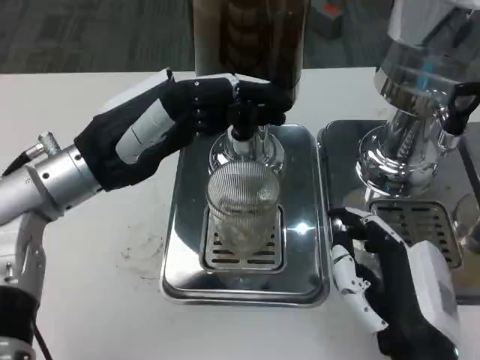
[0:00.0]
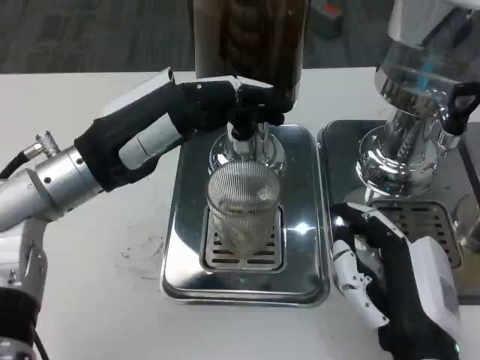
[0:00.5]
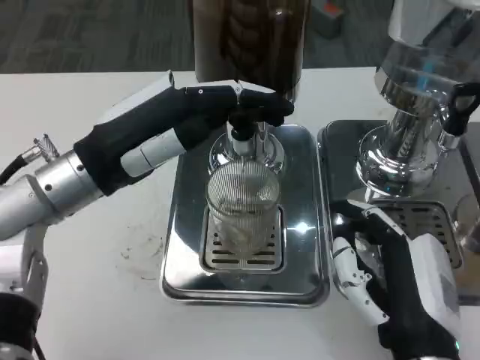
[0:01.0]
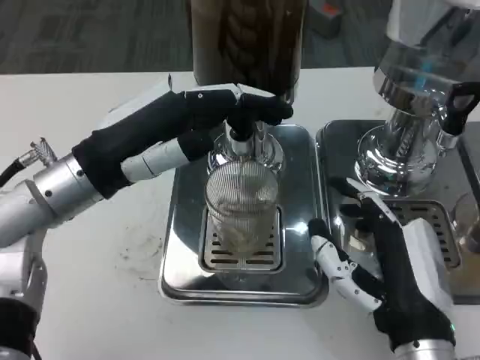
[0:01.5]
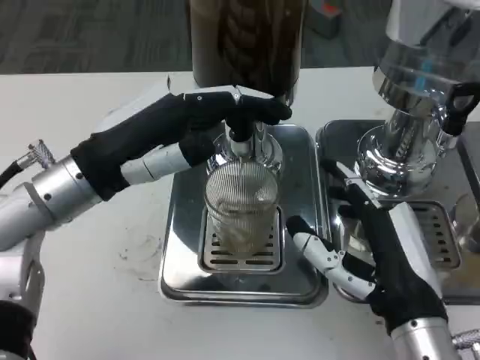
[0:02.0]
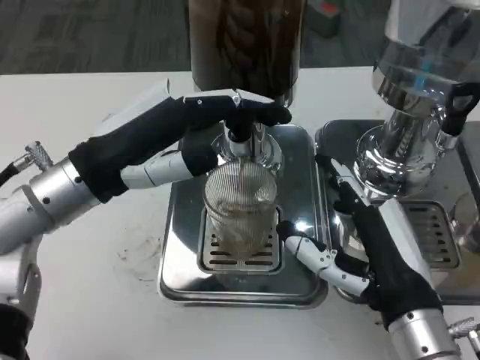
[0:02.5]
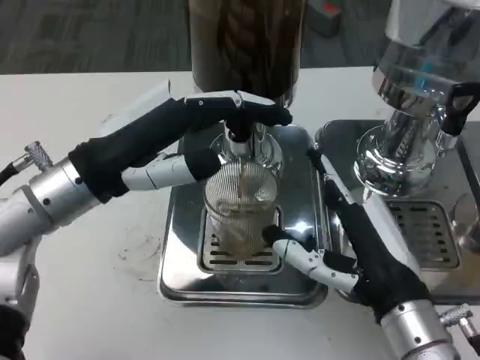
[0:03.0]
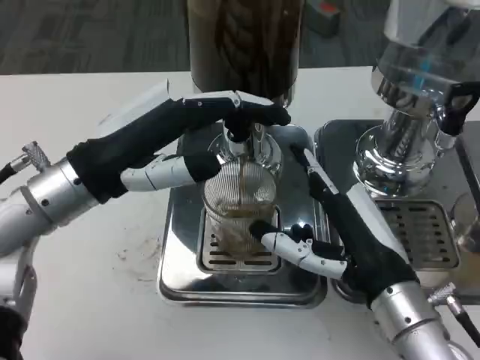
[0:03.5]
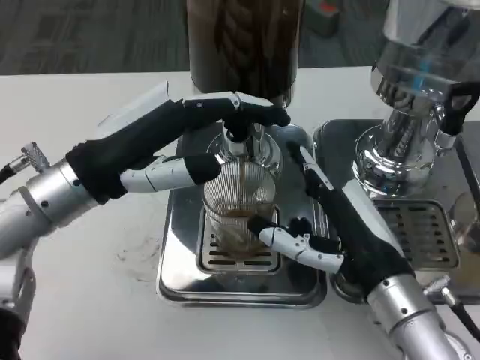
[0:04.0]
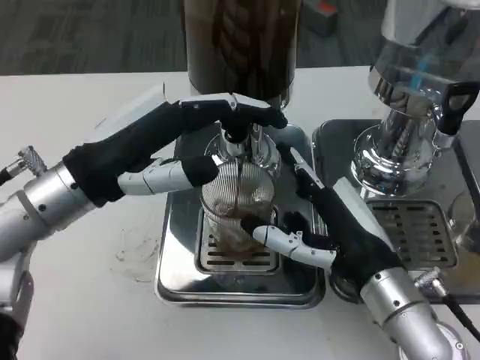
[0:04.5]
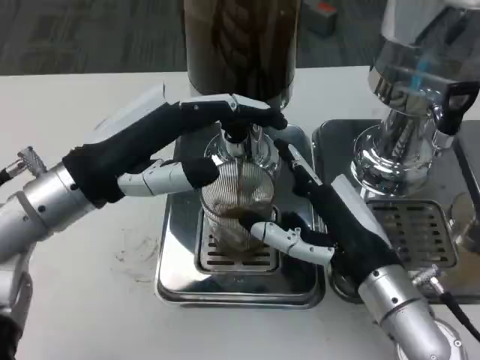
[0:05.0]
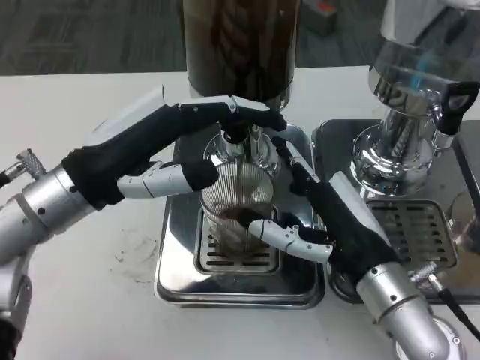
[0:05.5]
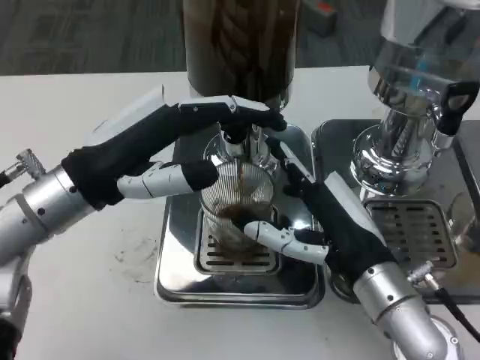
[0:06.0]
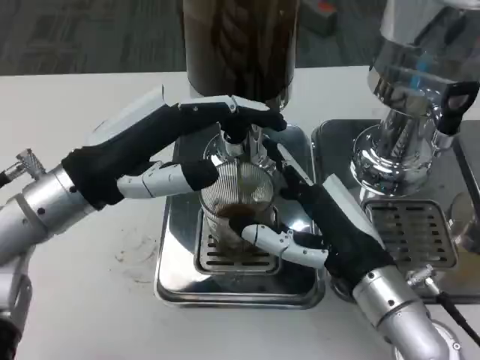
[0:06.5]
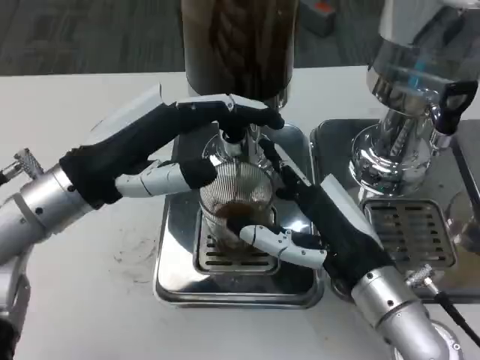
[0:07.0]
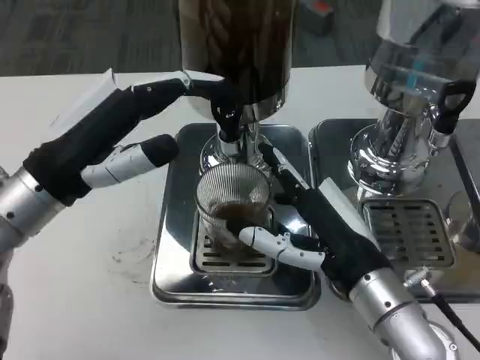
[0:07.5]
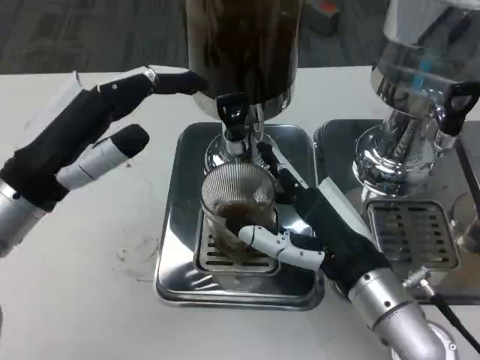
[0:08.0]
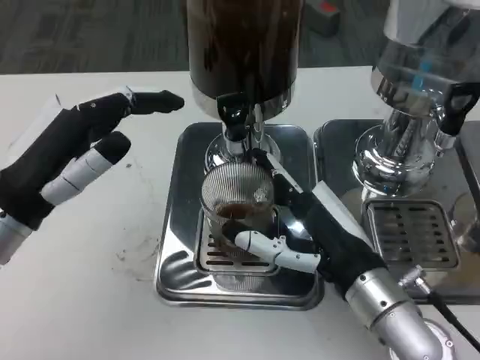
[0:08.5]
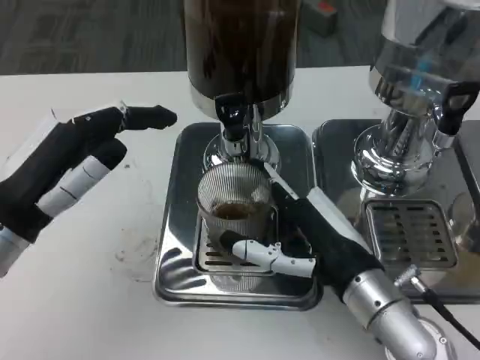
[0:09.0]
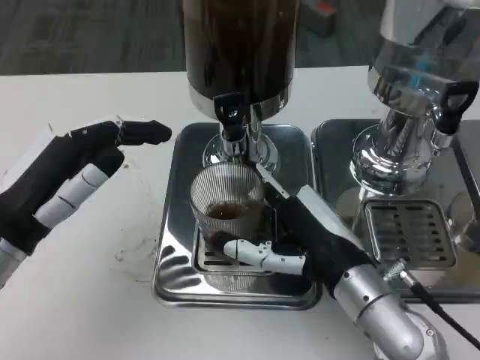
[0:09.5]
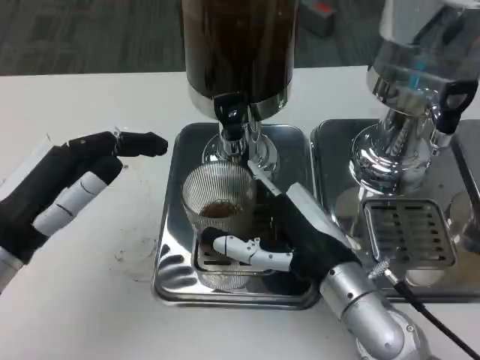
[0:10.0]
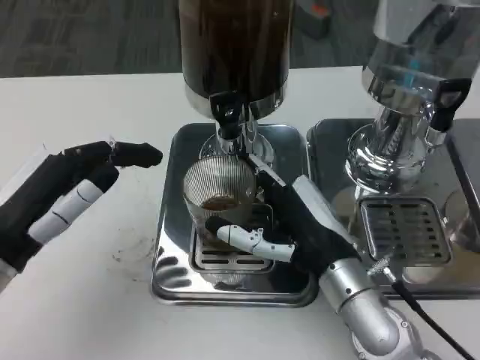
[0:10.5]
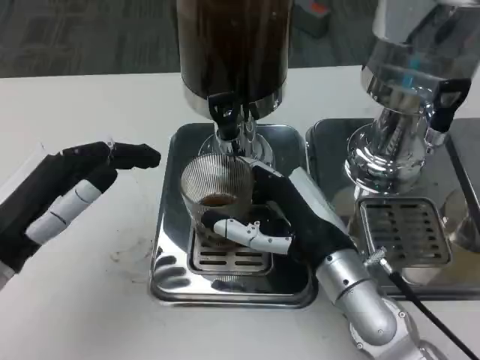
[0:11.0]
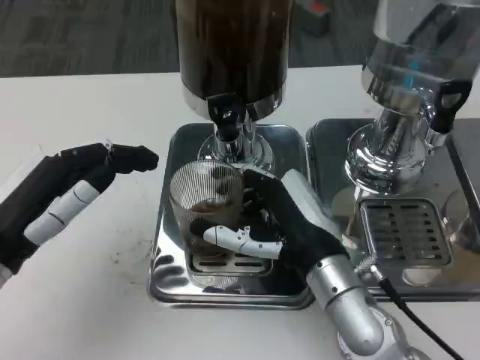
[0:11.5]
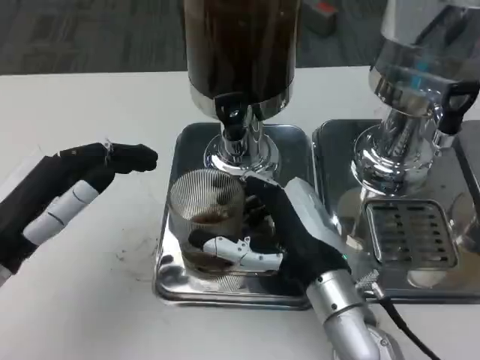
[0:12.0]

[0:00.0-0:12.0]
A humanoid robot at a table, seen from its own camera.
Task of the whole recording: Grasp the cup under the faucet to collect the drink, then remove the cup.
0:04.0 to 0:06.0: There are only small adjustments of the hands.
0:08.0 to 0:10.0: The left hand ends up some 5 cm from where it was.
0:10.0 to 0:12.0: The hands stay close to where they were, moving slightly.

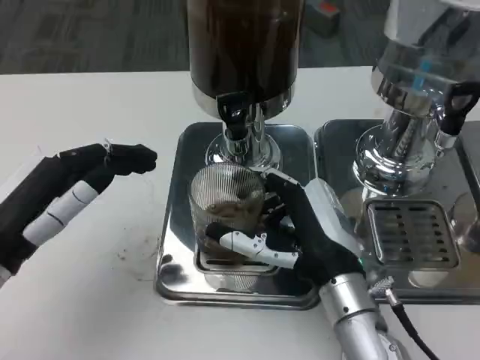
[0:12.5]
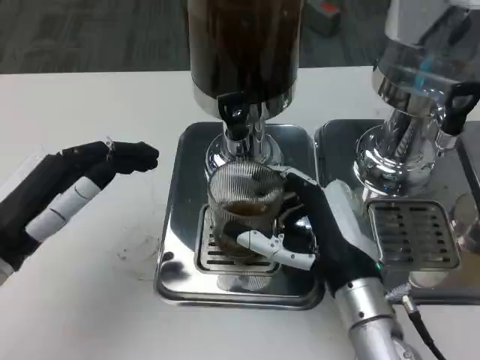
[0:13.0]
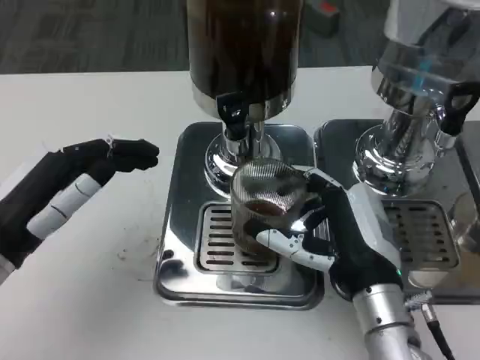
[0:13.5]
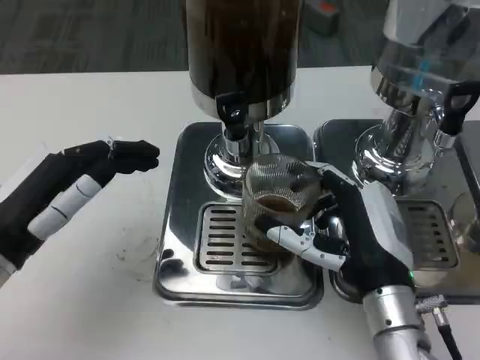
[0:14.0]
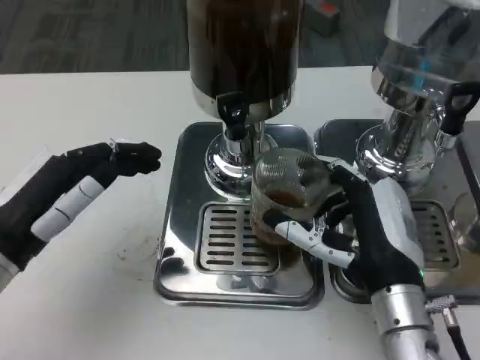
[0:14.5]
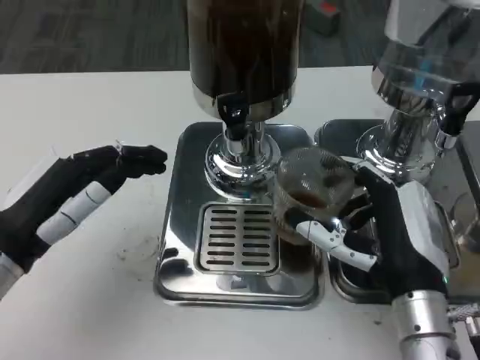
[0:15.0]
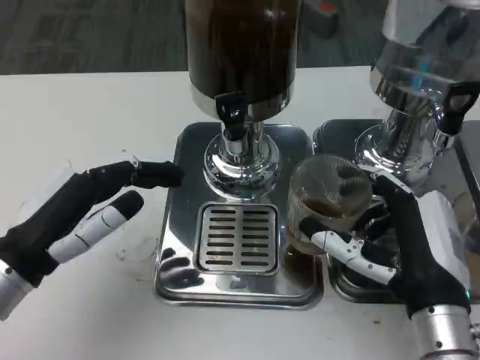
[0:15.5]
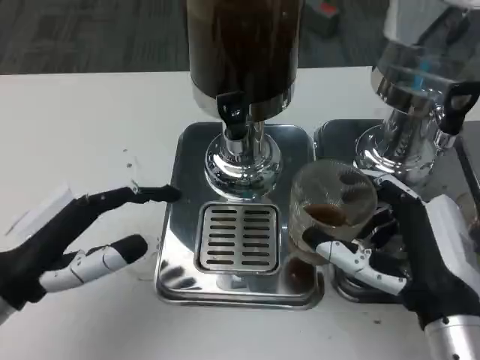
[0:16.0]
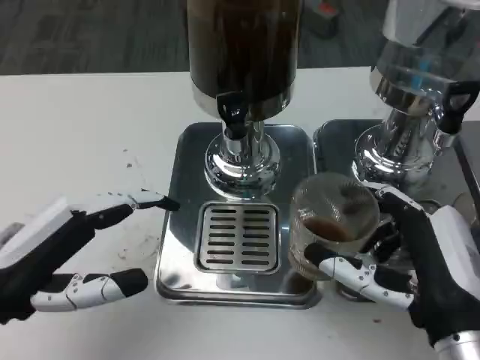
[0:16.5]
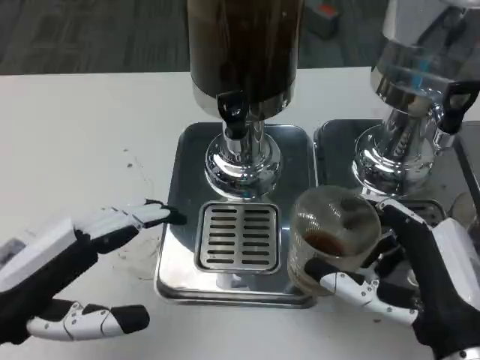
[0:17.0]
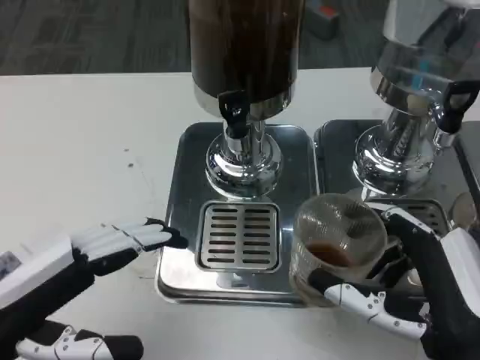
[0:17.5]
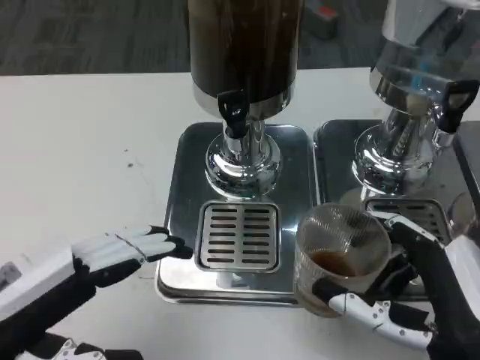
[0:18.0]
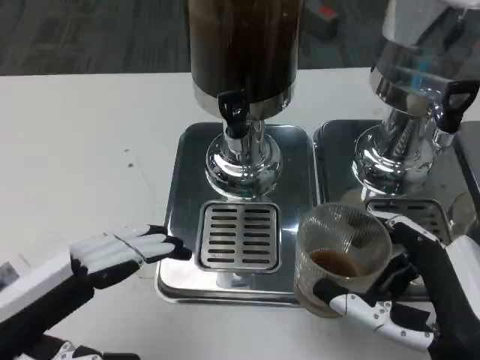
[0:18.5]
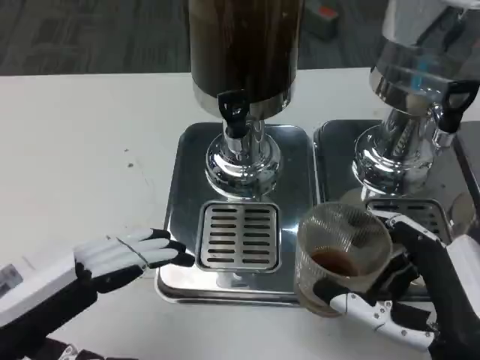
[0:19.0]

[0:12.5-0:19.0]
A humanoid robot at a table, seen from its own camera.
Task of the whole recording: Grasp the cup under the faucet to collect the drink, then remove the cup.
0:14.5 to 0:17.0: The hands both shift backward by roughly 5 cm.

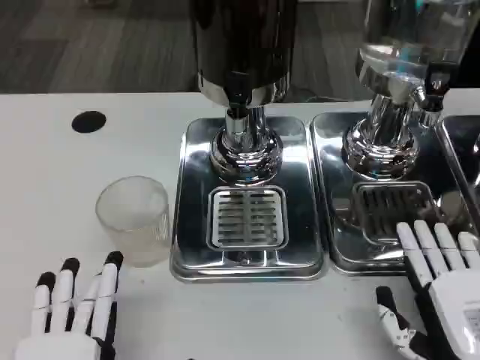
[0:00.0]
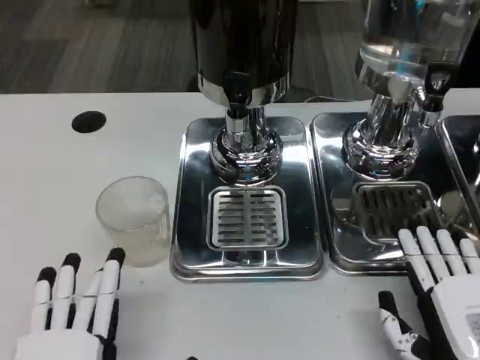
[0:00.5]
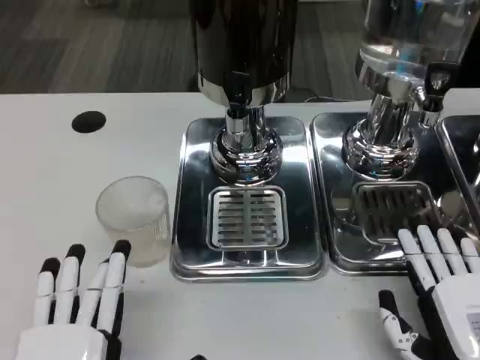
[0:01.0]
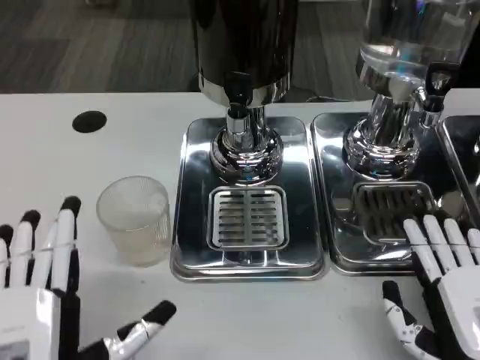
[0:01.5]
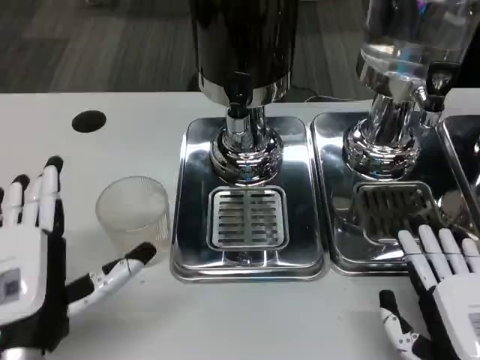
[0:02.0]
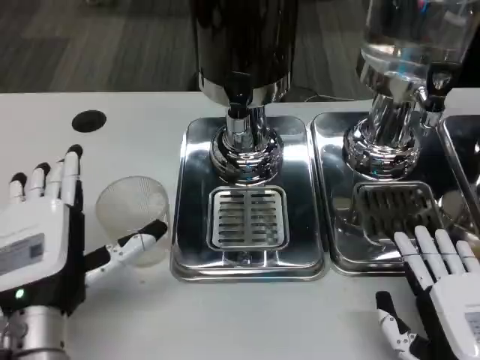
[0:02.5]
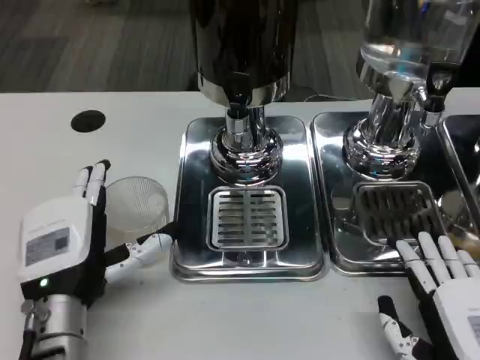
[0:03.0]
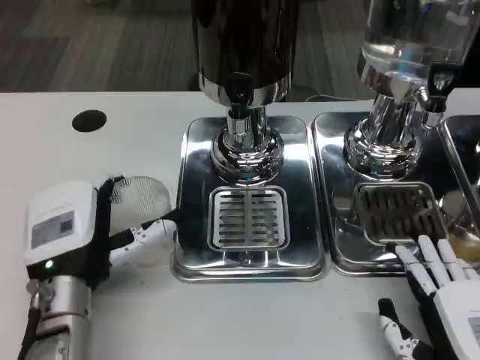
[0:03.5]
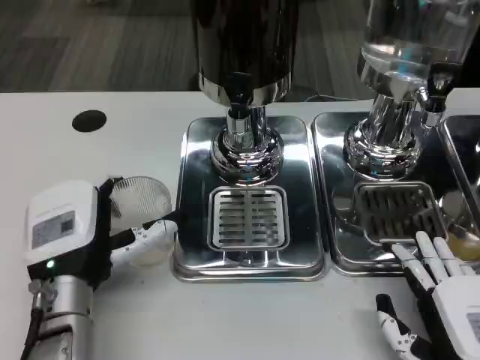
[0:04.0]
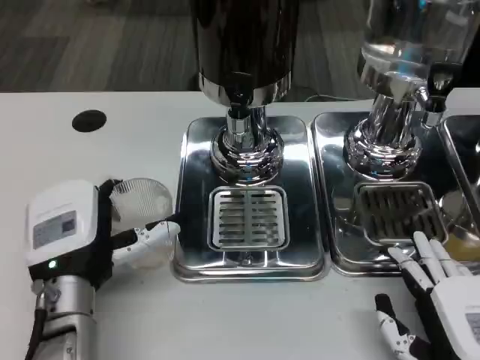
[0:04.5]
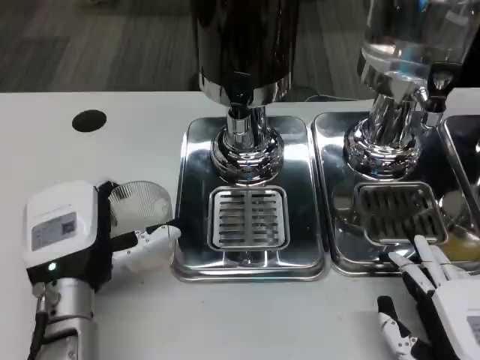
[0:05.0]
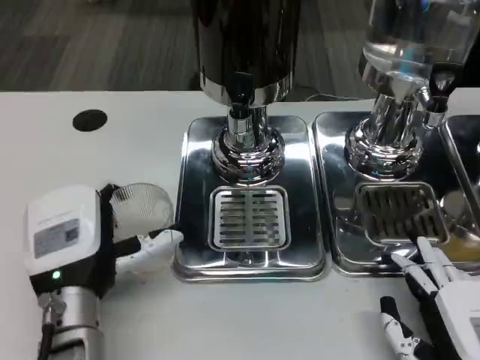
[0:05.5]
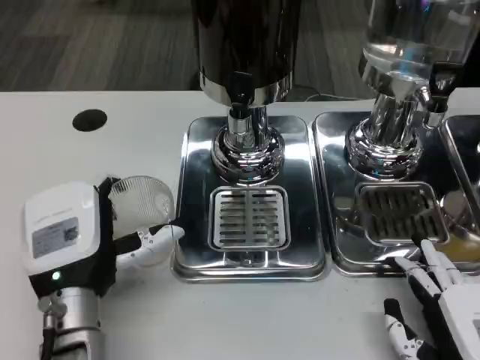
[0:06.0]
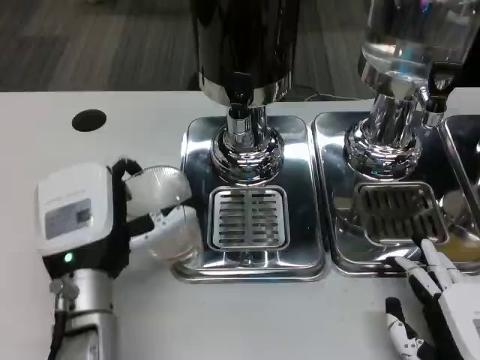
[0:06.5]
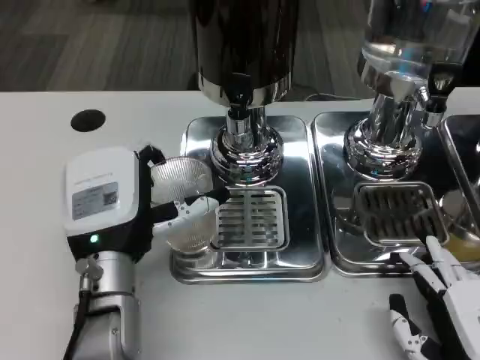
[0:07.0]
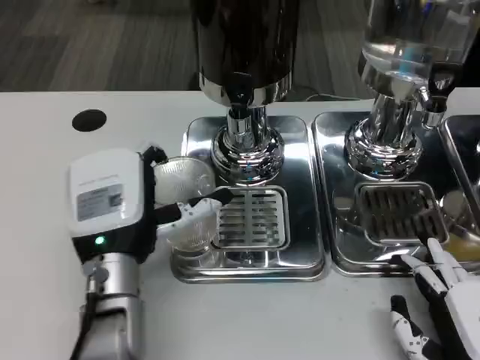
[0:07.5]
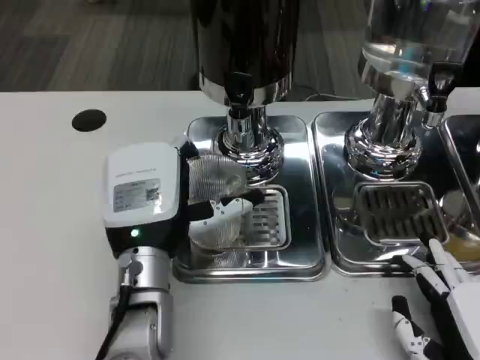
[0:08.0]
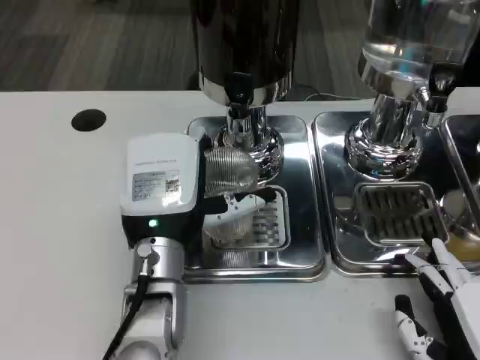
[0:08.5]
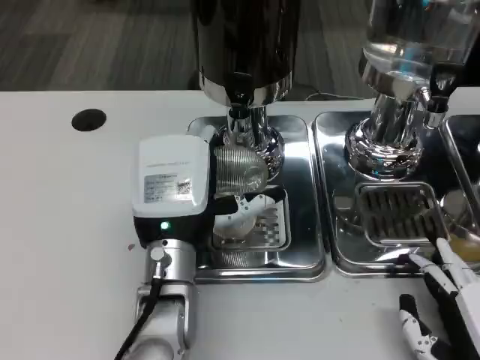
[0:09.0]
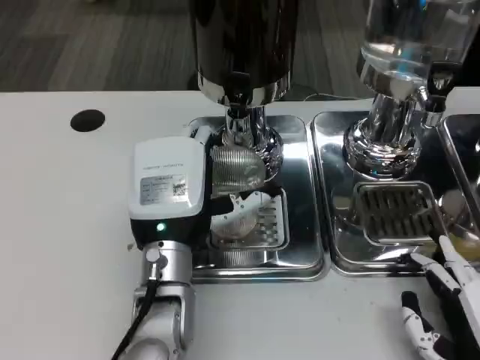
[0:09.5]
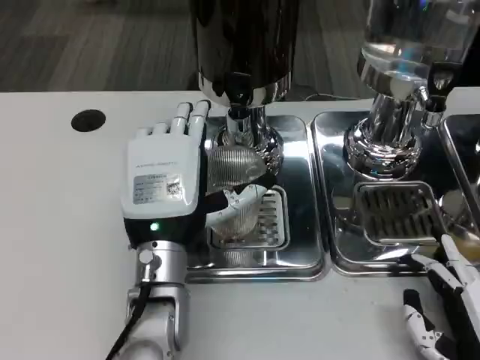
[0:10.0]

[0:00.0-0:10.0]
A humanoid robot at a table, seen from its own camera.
Task of the whole recording: Grasp the cup under the faucet to collect the drink, then remove the cup.
0:00.0 to 0:02.0: The left hand moves forward, about 10 cm.
0:02.0 to 0:04.0: The left hand travels forward by about 5 cm.
0:04.0 to 0:06.0: The hands stay close to where they were, moving slightly.
0:06.0 to 0:08.0: The left hand travels to the right by about 5 cm.
0:08.0 to 0:10.0: The hands move only a little.
